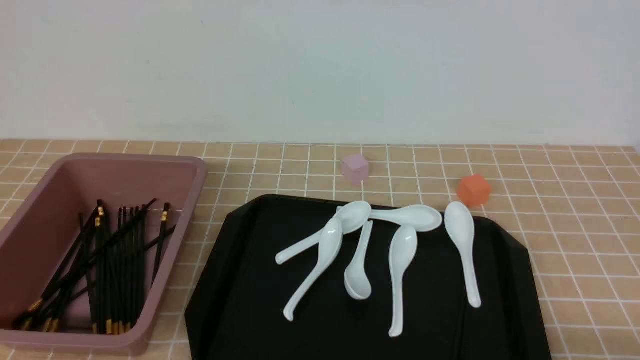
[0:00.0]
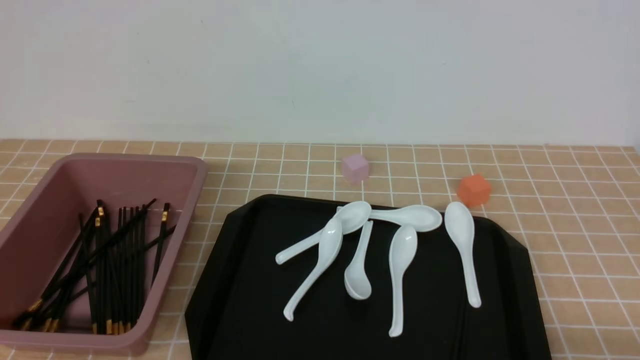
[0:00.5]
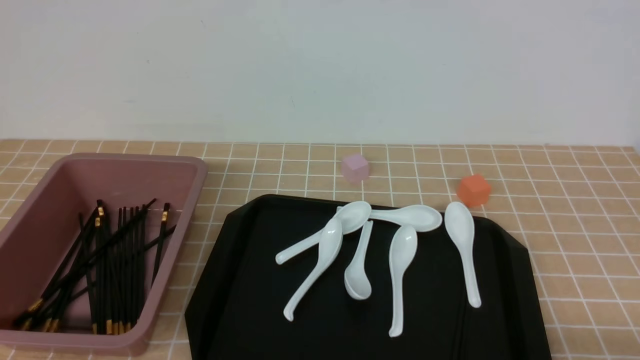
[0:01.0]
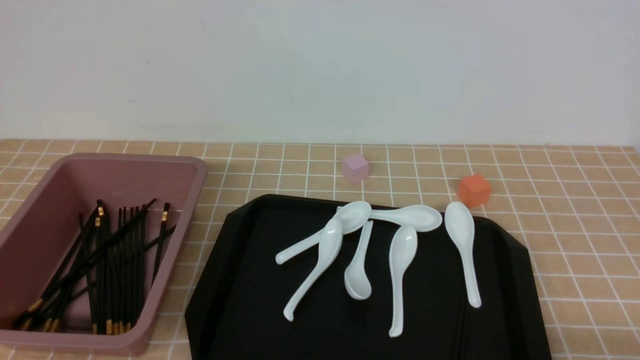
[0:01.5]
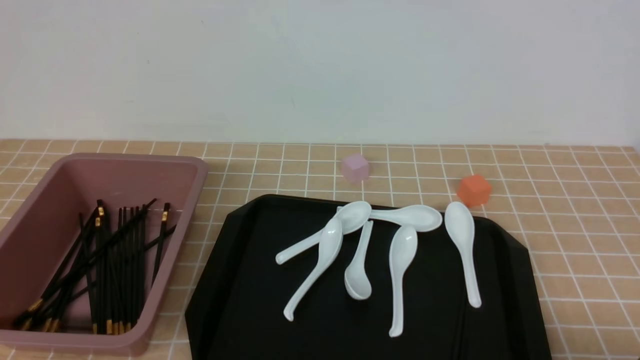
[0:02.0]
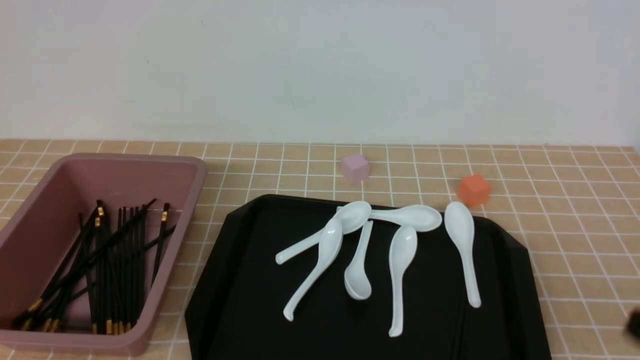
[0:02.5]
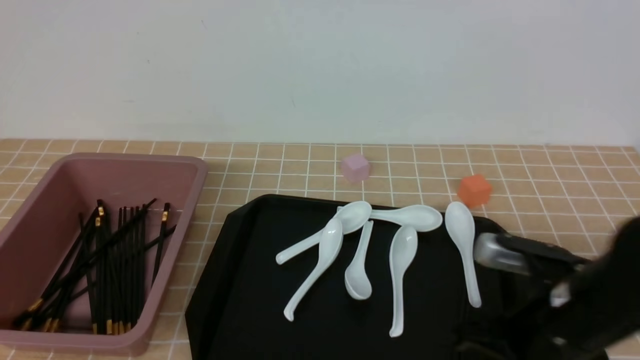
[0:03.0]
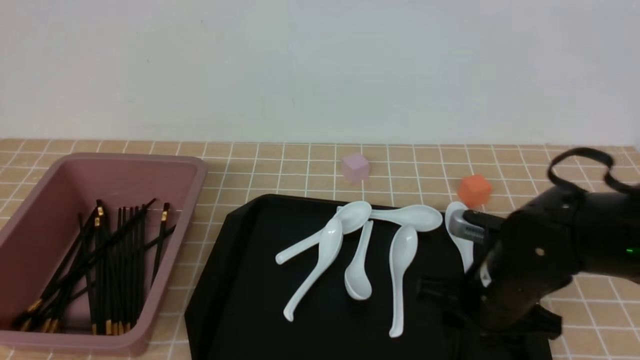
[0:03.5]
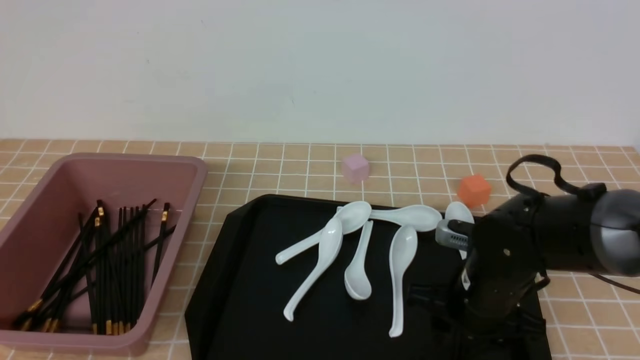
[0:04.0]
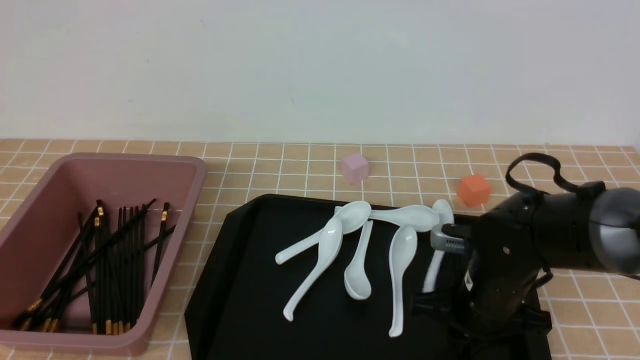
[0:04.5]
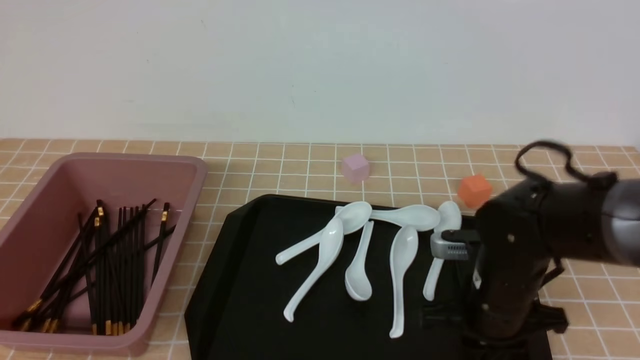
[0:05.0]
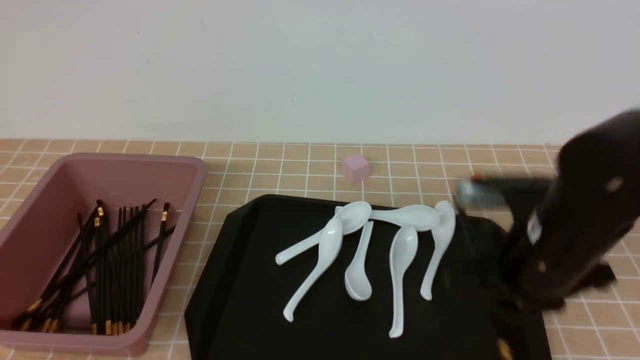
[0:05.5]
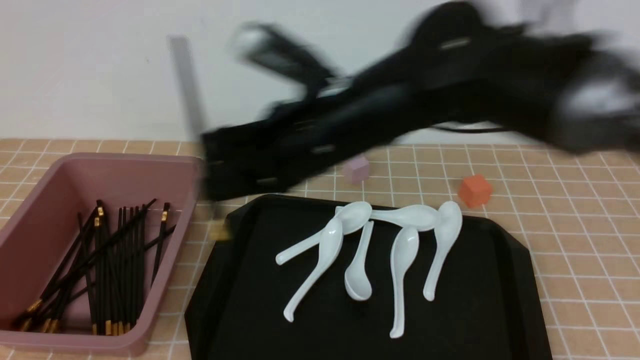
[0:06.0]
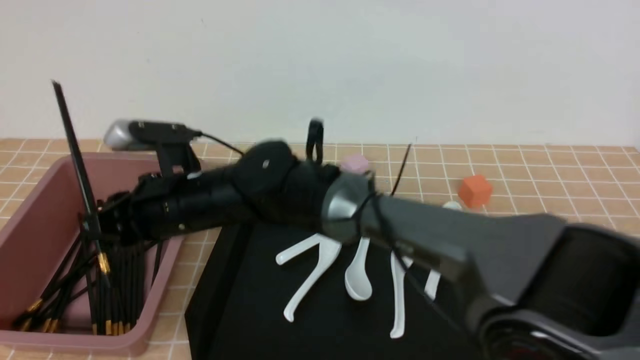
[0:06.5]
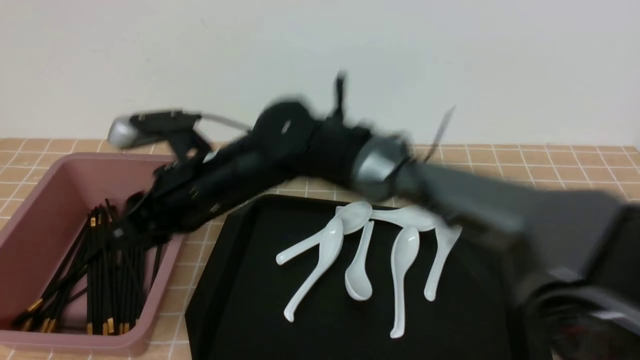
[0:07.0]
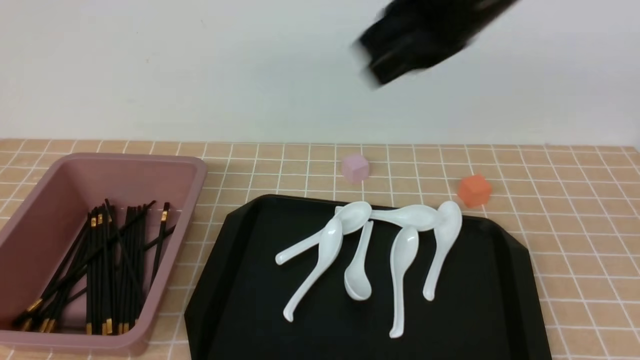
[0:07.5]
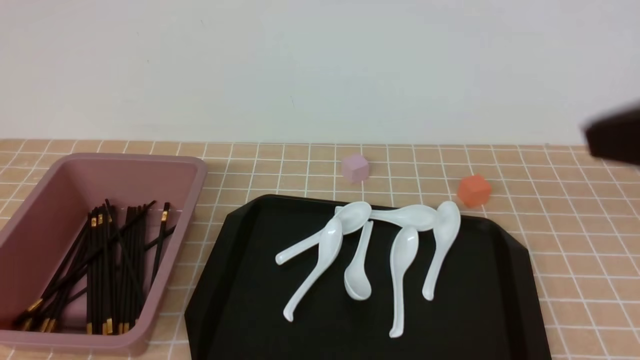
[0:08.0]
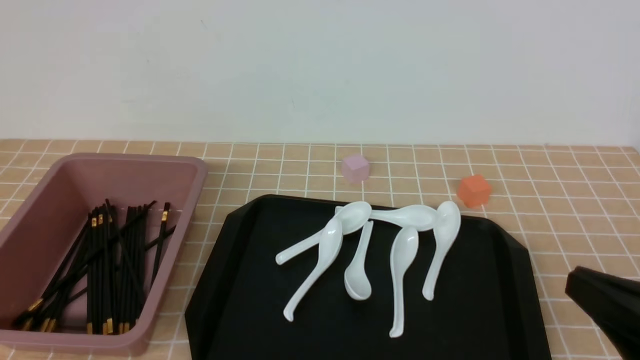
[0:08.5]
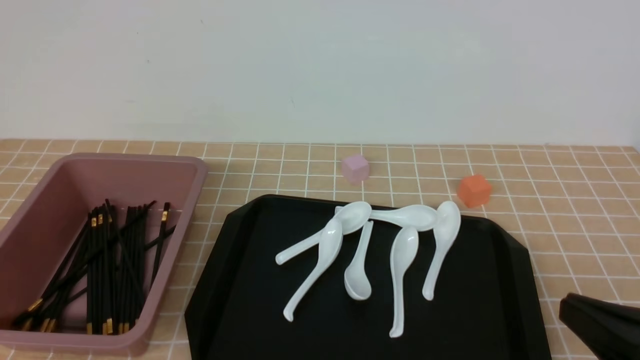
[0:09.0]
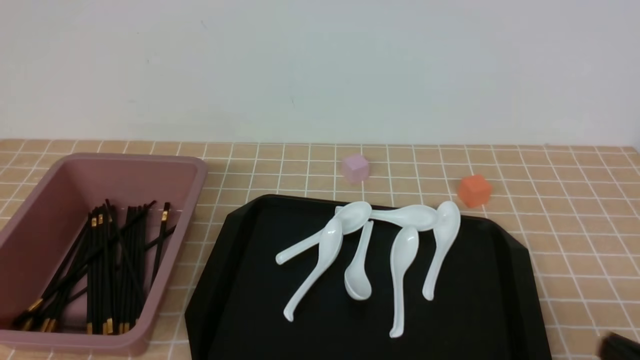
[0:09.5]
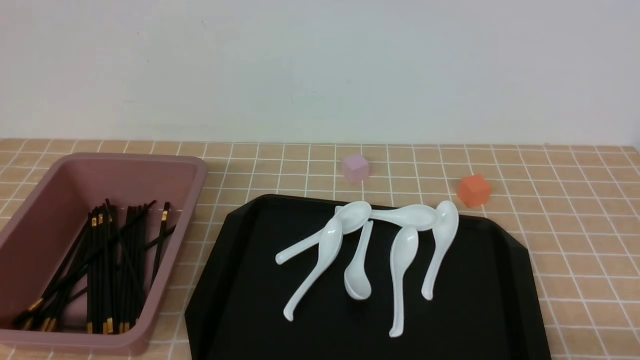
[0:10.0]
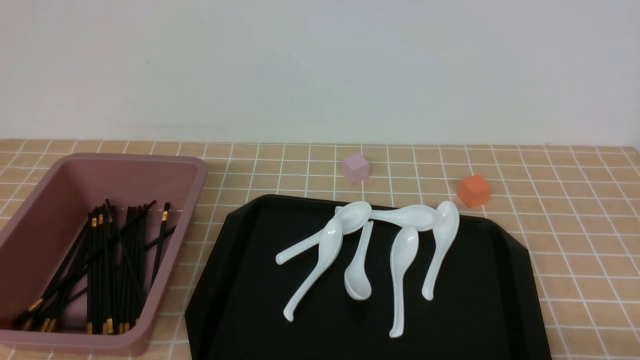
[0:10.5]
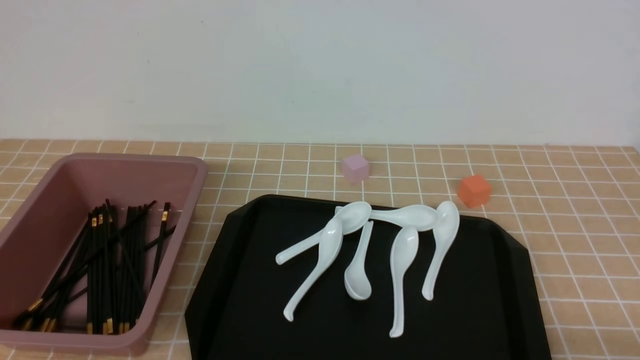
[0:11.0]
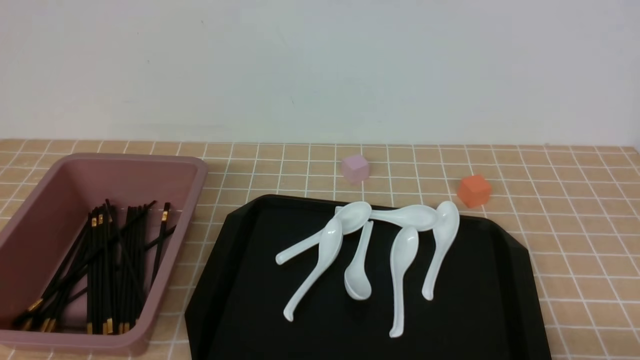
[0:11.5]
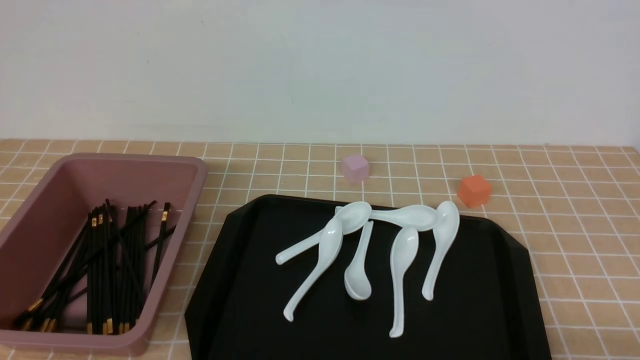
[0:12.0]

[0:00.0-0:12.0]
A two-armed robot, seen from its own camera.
Step, 0:00.0 to 0:05.5: use the right arm to grab a pair of chopsticks.
Step, 0:06.0 to 0:07.0: use the right arm to put the chopsticks into the lunch box.
0:02.0 to 0:04.0: The right gripper is displaced forward and to the left by approximately 25 cm, and closes and opens again.
0:04.0 to 0:06.0: The right gripper is displaced upward and to the left by approximately 25 cm, and closes its fingers.
0:06.0 to 0:08.0: The right gripper goes approximately 30 cm to the right, backward and upward, and closes its fingers.
0:08.0 to 0:10.0: The right gripper goes about 25 cm downward.
